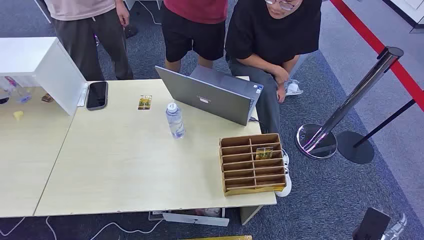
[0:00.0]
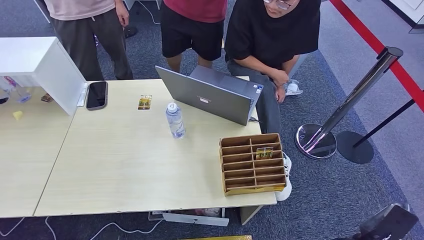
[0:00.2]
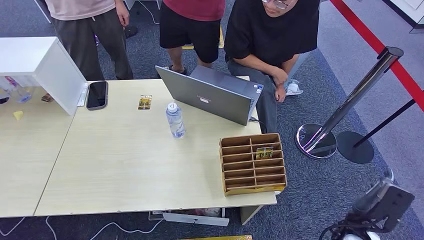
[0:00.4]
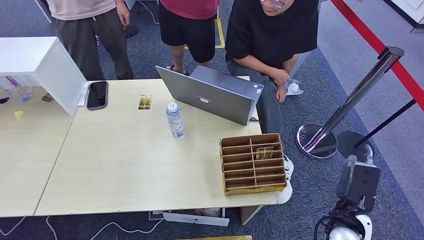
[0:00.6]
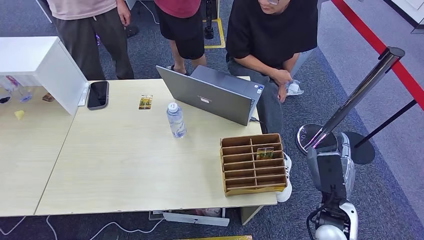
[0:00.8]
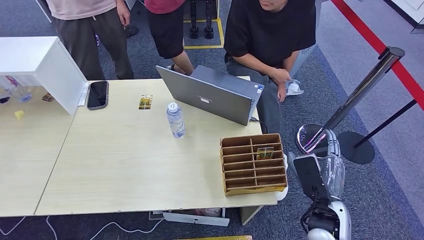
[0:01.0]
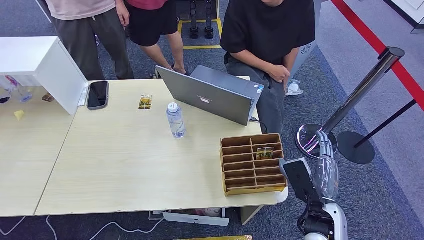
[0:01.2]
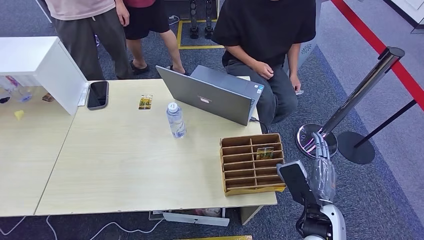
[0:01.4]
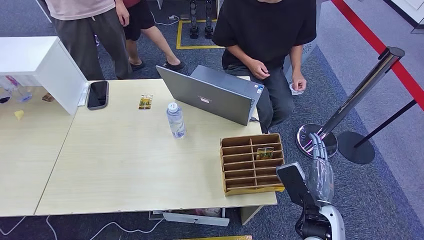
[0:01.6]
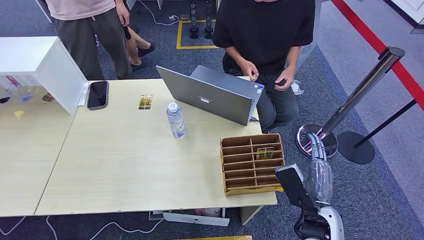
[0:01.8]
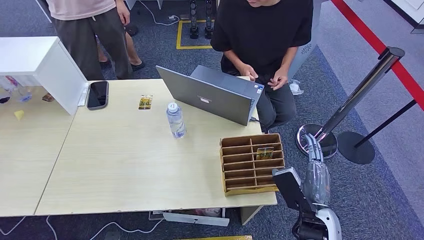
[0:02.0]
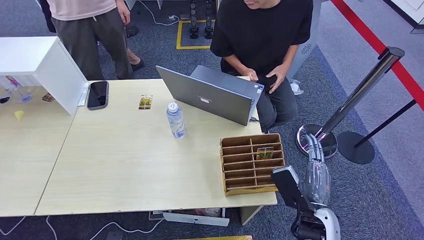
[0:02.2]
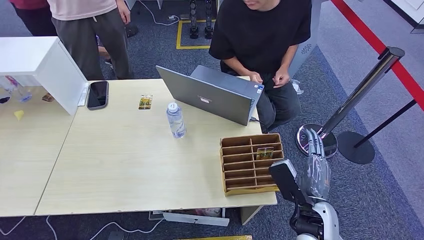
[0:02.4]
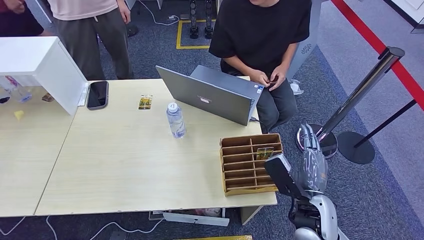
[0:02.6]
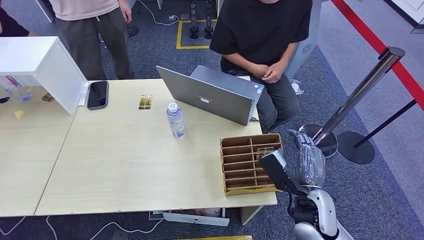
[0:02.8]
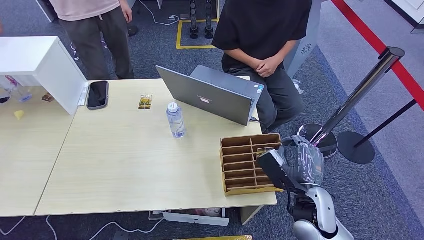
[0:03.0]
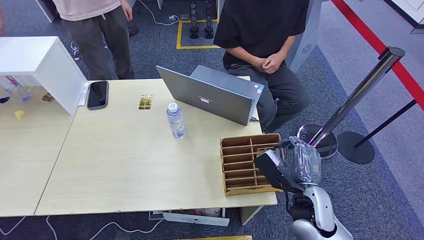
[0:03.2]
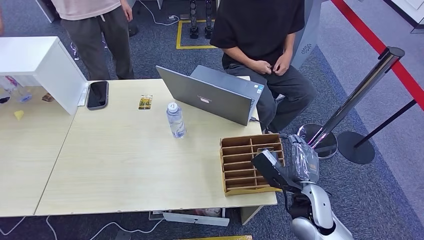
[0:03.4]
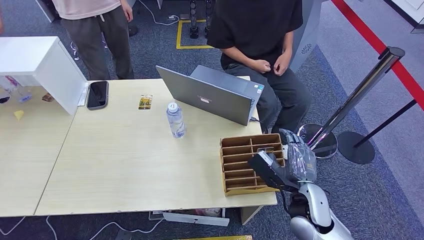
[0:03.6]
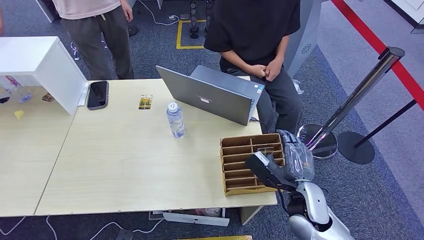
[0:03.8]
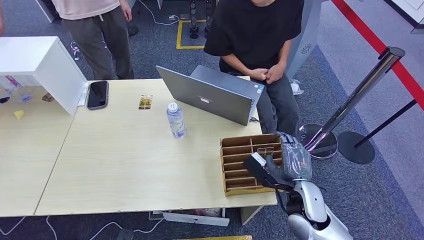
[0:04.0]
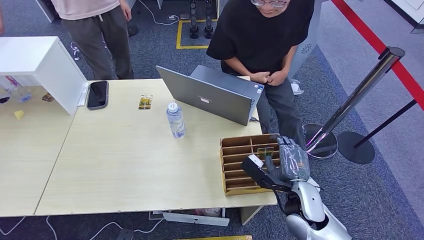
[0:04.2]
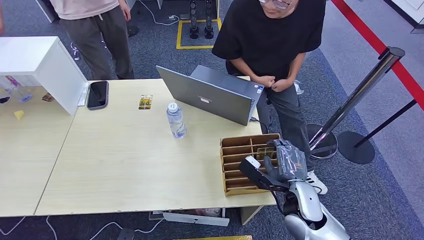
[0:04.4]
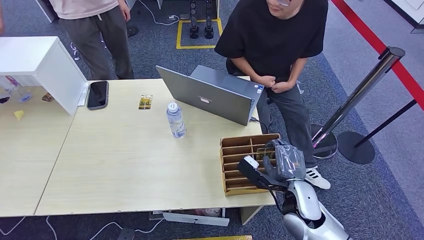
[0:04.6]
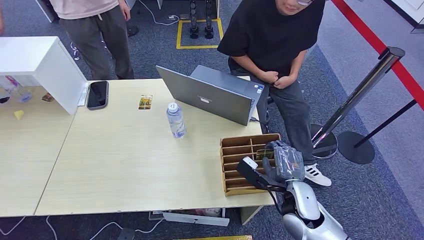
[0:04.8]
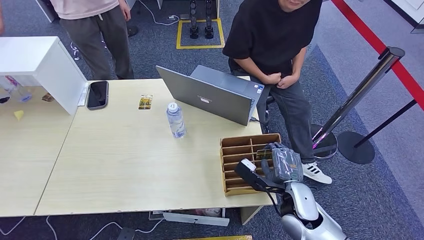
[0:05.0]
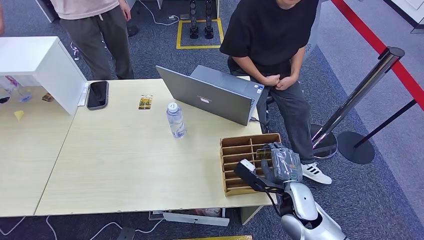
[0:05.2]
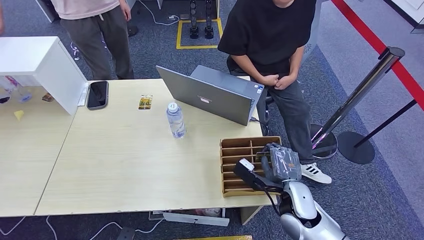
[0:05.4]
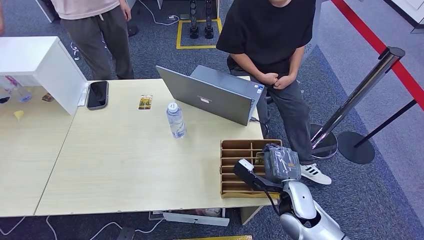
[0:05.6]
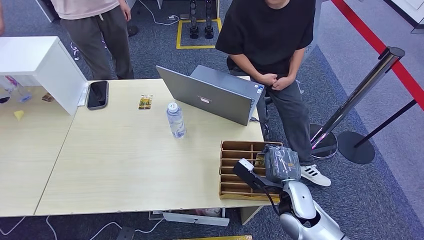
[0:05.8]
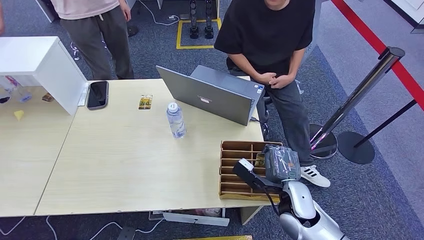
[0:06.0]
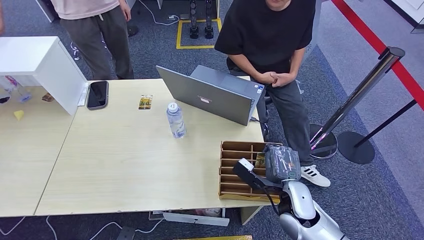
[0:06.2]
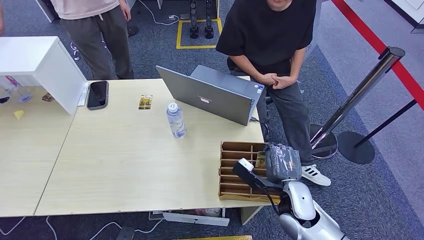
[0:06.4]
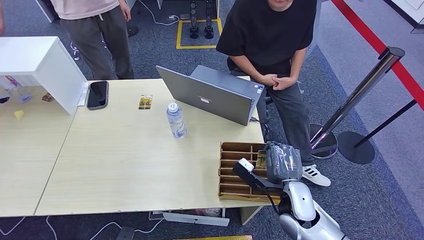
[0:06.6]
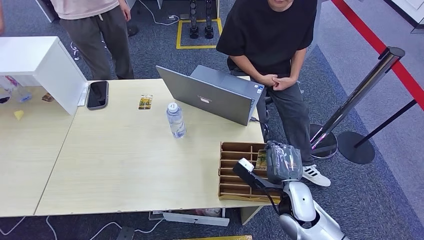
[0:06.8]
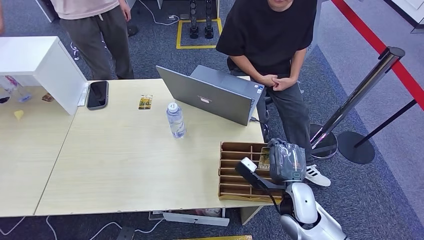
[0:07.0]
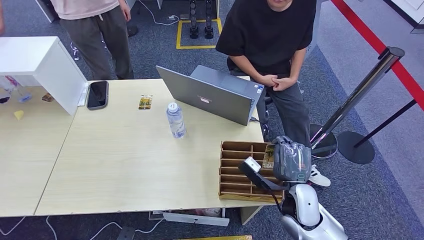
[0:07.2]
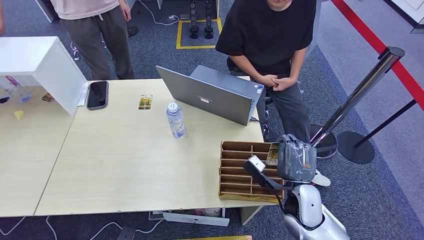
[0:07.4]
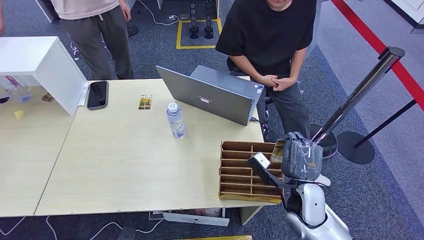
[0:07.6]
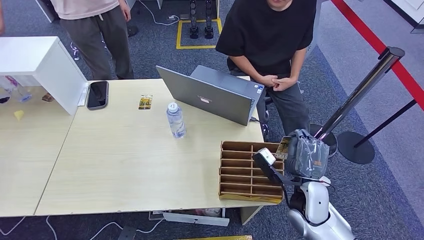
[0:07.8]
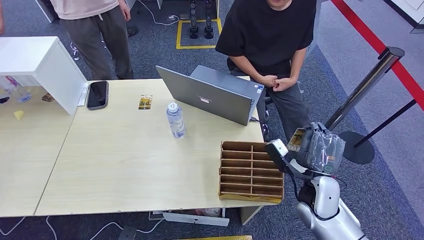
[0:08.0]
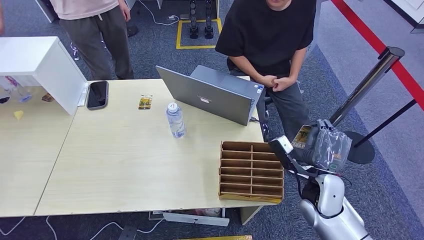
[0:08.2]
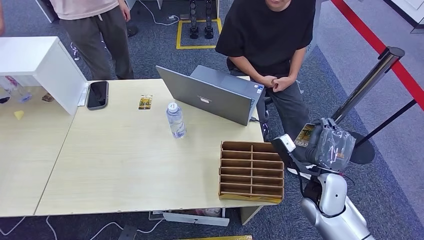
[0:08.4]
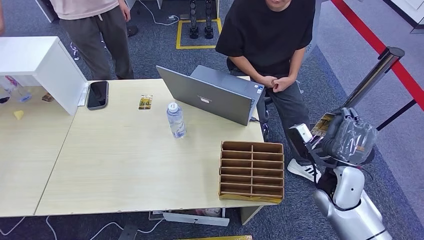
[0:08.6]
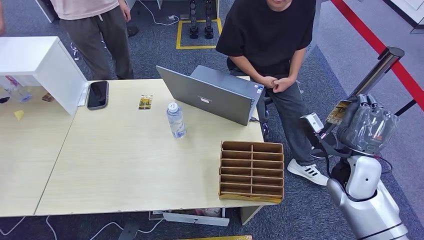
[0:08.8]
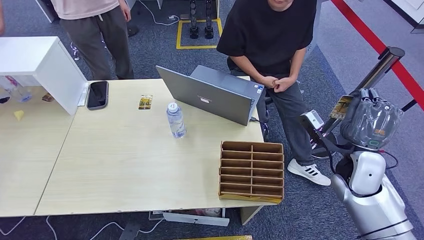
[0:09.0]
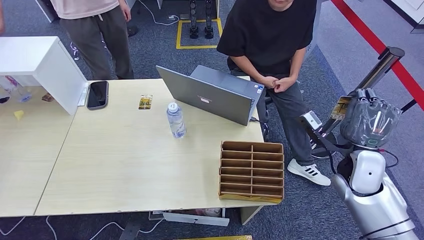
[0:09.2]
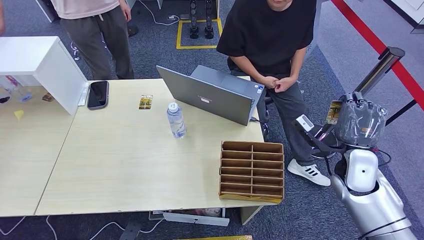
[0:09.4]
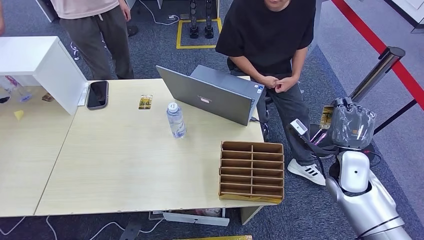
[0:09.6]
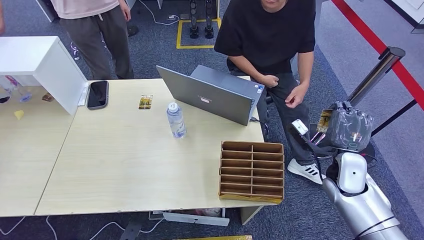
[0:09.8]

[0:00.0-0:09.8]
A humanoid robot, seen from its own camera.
Step, 0:00.0 to 0:07.2: Pick up the room card from the card holder.
Step, 0:07.4 to 0:09.8: Hand the room card to the target.
0:01.4 to 0:02.8: There are only small adjustments of the hands.
0:02.8 to 0:04.2: The hands stay close to where they were, moving slightly.
0:04.2 to 0:07.0: The hands move only a little.
0:07.0 to 0:08.4: The right hand is displaced to the right by some 5 cm.
0:08.4 to 0:09.8: The right hand shifts some 5 cm to the right.
